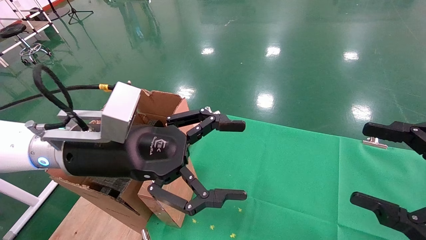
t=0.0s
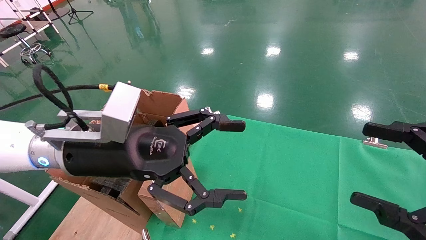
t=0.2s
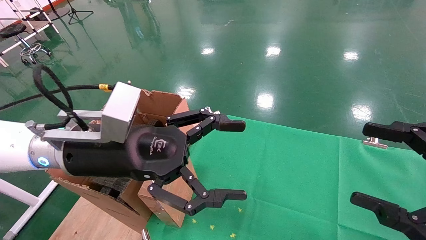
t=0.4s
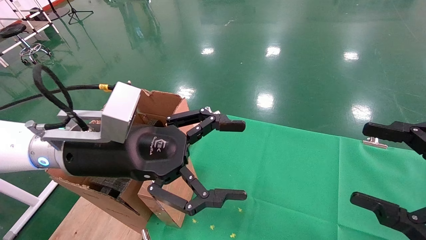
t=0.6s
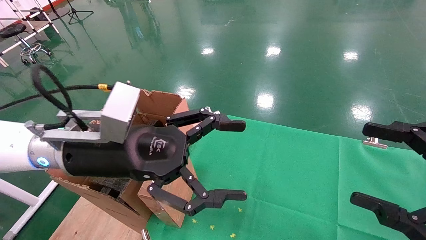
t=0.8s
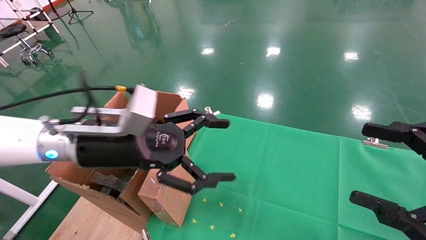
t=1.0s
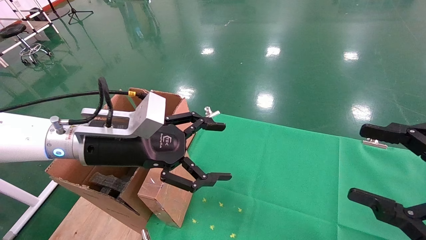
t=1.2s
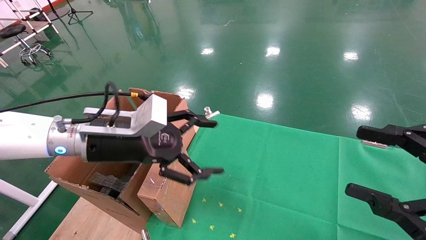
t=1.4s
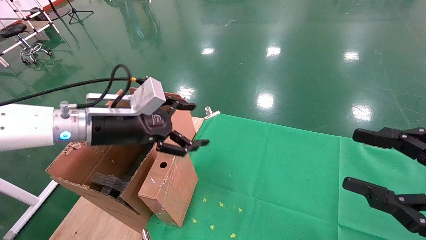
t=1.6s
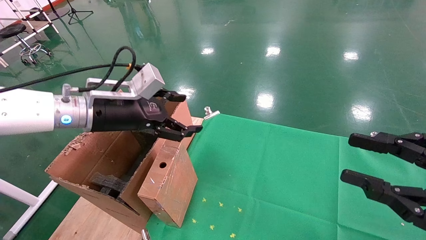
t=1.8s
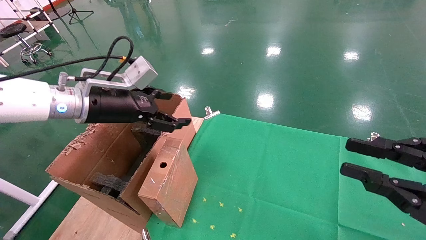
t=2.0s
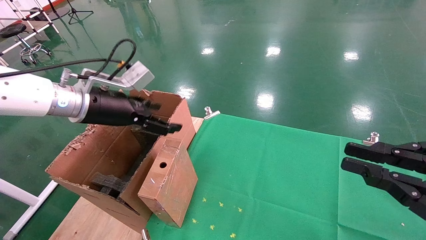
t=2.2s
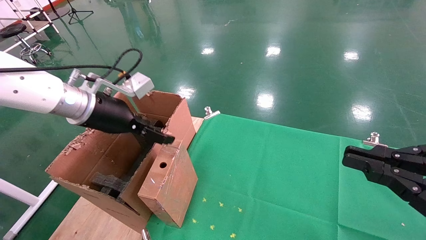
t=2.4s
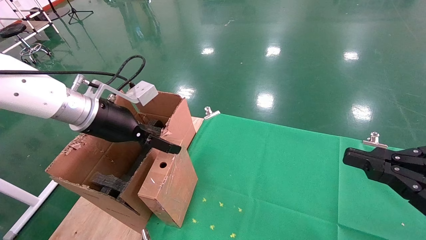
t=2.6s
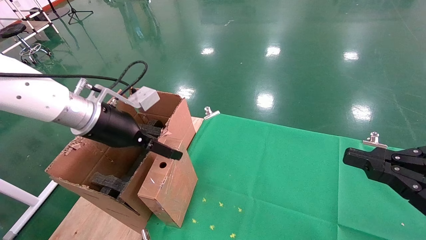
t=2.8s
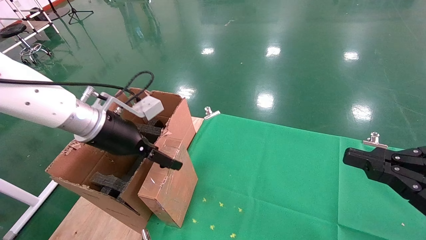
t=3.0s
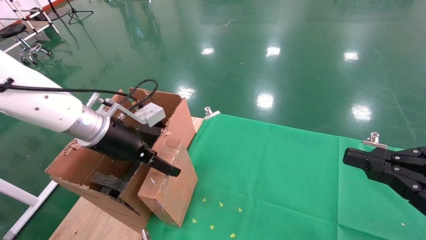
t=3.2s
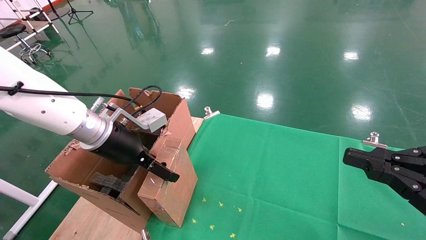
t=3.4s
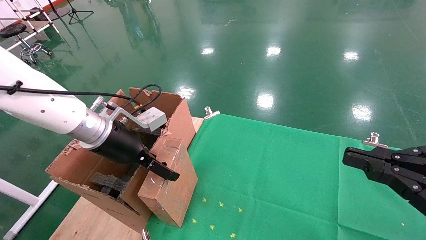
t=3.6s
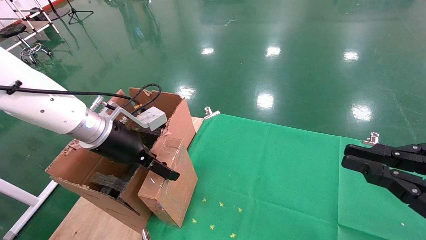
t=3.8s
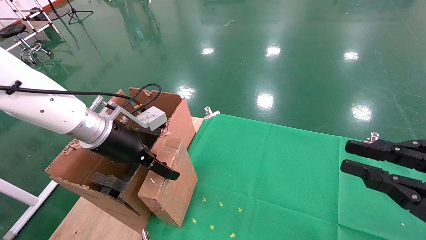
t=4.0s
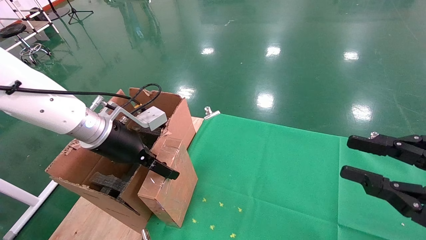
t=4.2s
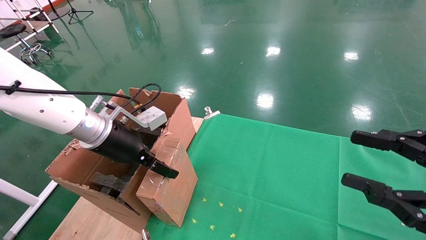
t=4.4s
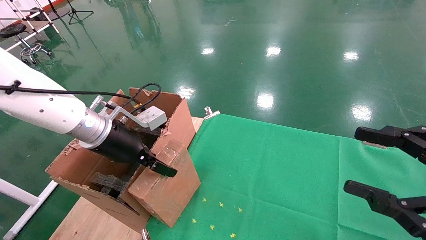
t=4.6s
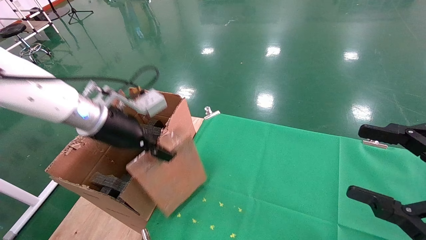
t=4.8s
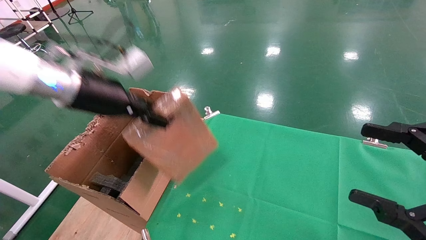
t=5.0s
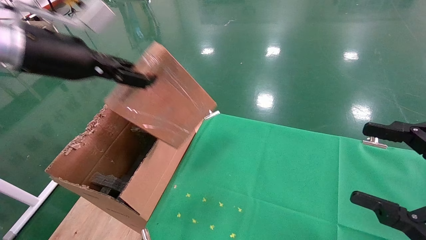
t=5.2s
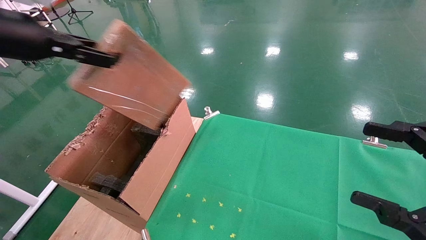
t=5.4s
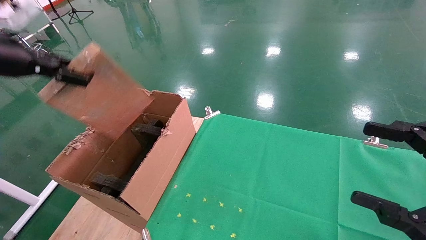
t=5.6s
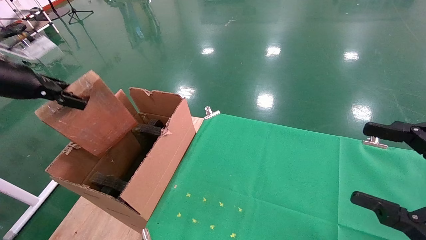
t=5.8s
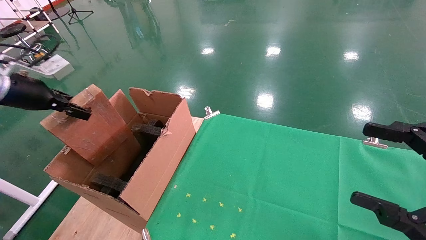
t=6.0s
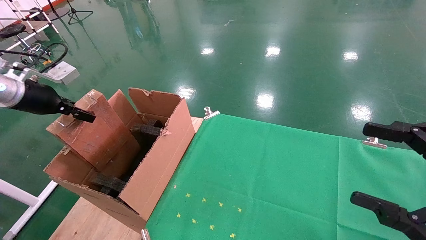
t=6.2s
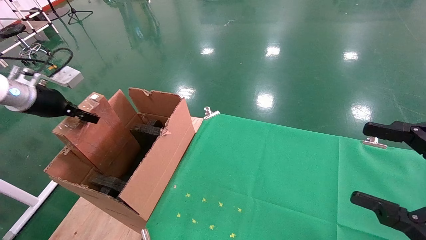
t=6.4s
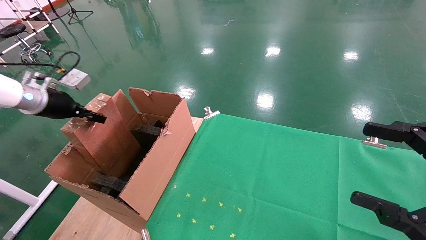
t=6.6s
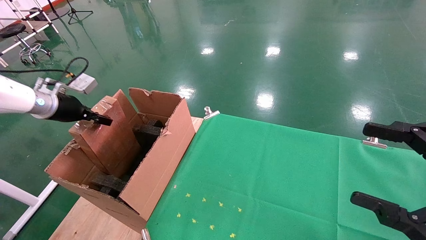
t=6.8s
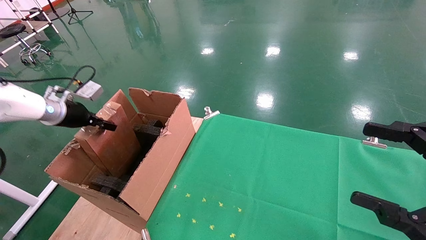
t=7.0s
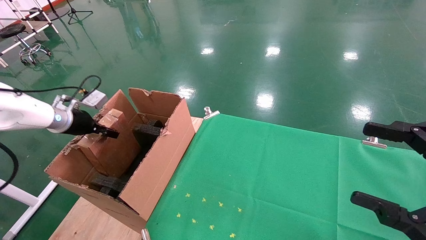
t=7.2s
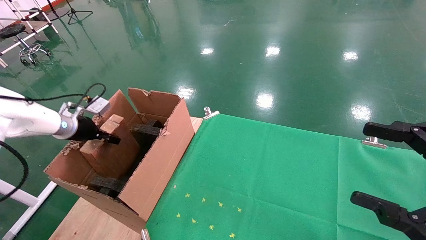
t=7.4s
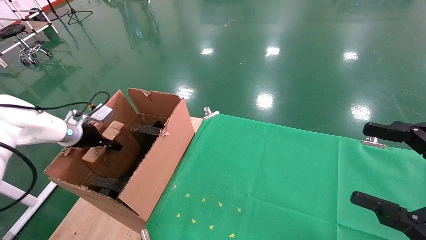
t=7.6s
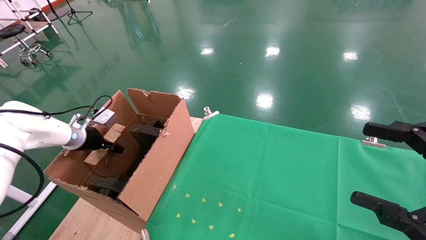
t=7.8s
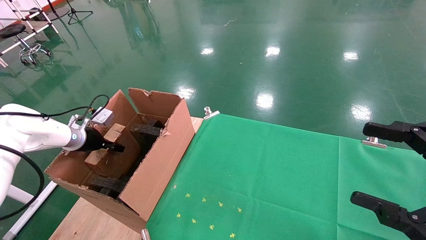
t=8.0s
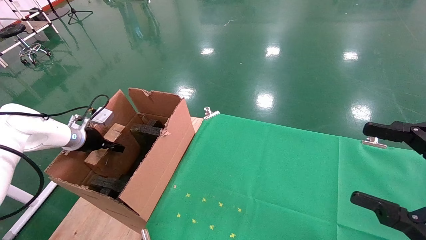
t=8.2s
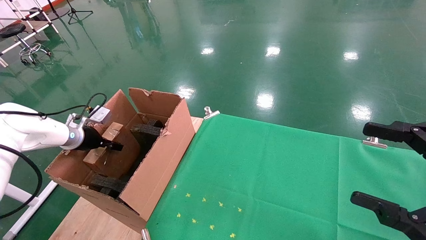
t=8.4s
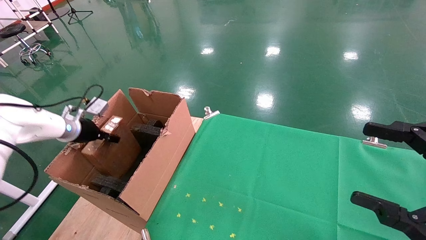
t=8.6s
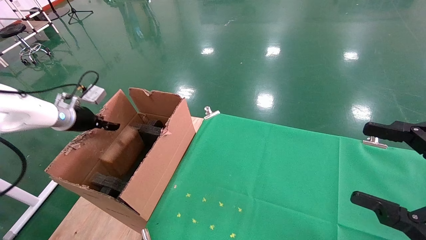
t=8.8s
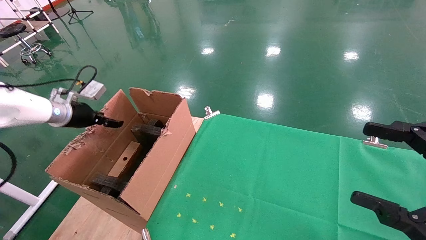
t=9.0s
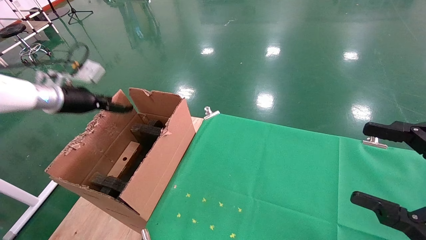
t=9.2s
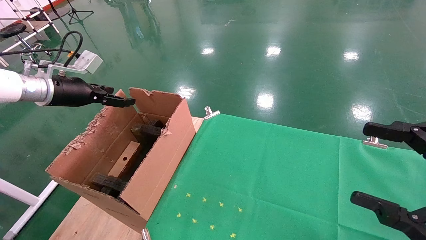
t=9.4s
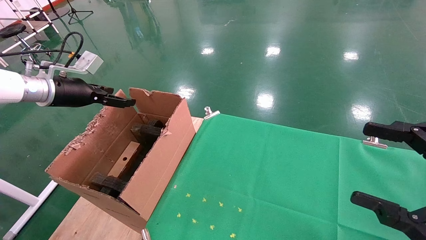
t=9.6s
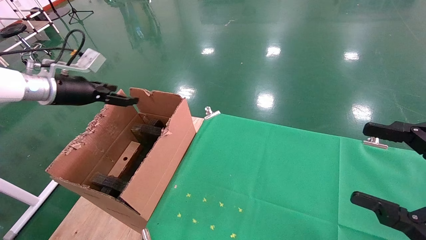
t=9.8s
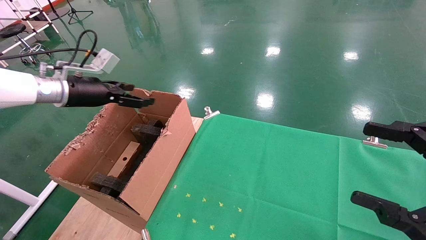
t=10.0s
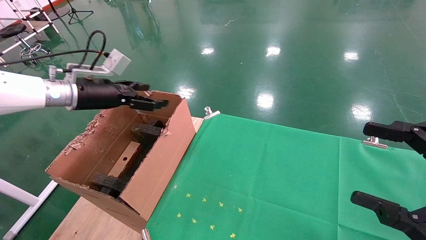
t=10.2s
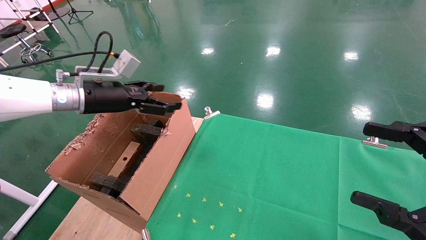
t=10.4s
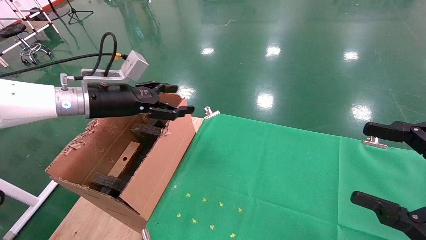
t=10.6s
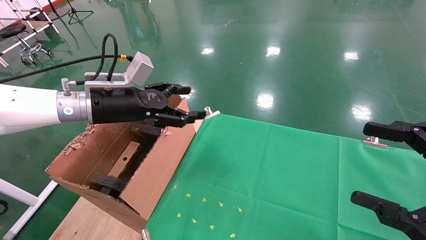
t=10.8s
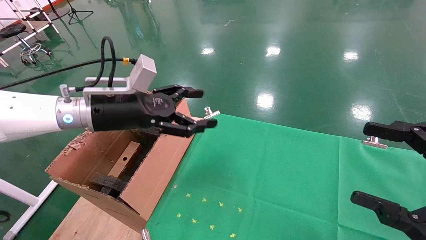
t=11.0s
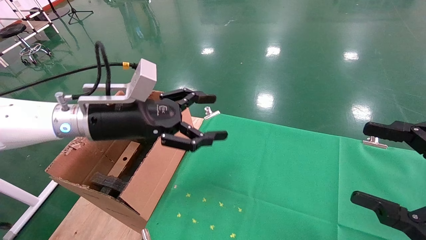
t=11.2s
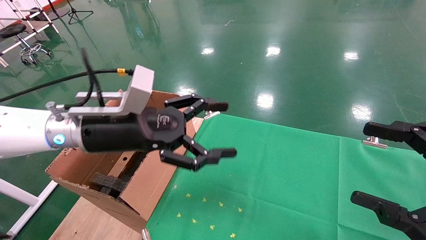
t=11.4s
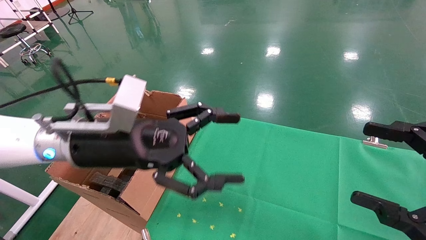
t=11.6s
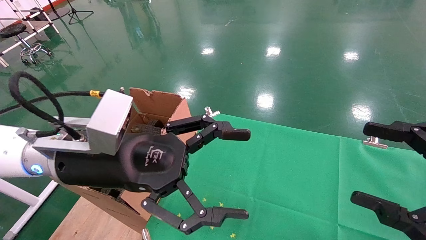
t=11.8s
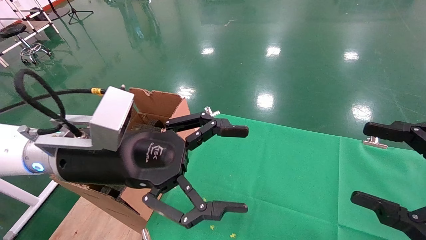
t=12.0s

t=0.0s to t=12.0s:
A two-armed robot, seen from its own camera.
Task of the whole recording: using a robotic arm to pick up a cardboard box and palace it the carton.
Step, t=1.2s to t=4.8s: Pick up the mouse and the power cord paper box.
Step, t=5.0s to t=9.4s: Place the mouse and the power cord paper box into the container.
t=0.0s to t=1.6s: The left gripper is displaced forward and to the left by about 10 cm.
t=1.6s to t=3.0s: The right gripper closes.
t=3.0s to t=4.4s: The right gripper opens.
t=4.4s to t=6.0s: The right gripper opens. Meanwhile the left gripper is displaced to the left by about 20 cm, and closes.
t=6.0s to t=7.6s: The left gripper is displaced downward and forward by roughly 20 cm.
t=7.6s to t=9.0s: The left gripper travels upward by roughly 10 cm, and opens up.
t=9.0s to t=10.4s: The left gripper moves to the right, about 15 cm, and opens its fingers.
t=10.4s to t=12.0s: The left gripper is displaced backward and to the right by roughly 20 cm.

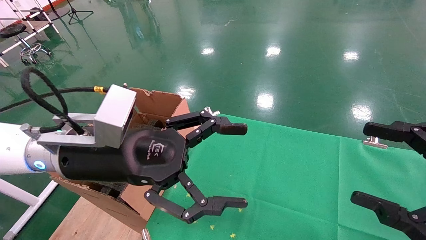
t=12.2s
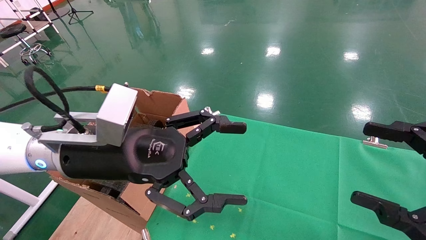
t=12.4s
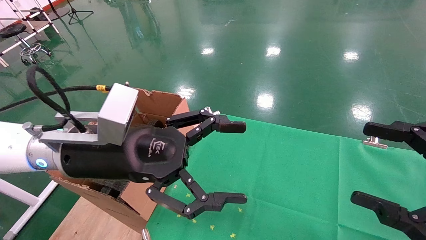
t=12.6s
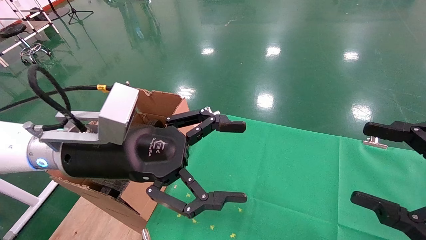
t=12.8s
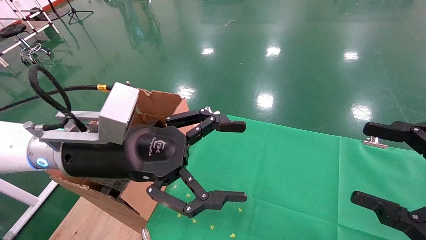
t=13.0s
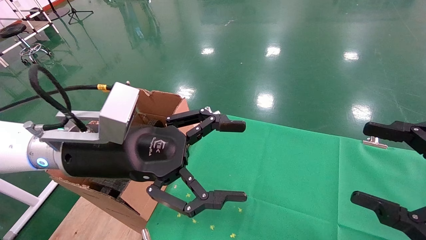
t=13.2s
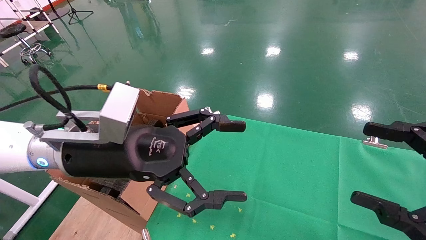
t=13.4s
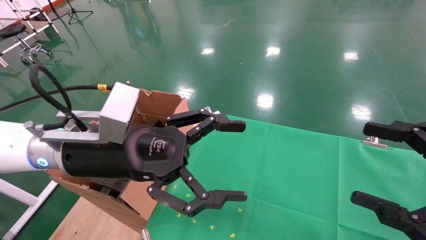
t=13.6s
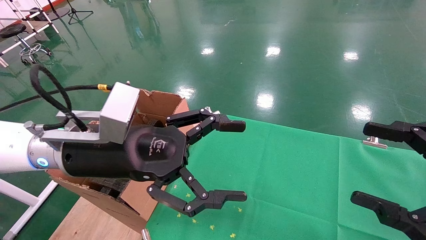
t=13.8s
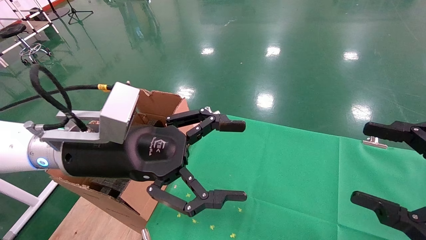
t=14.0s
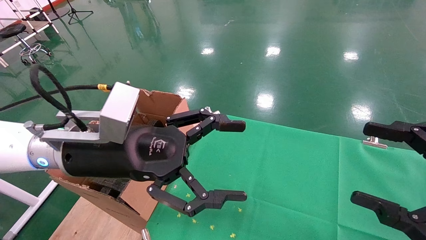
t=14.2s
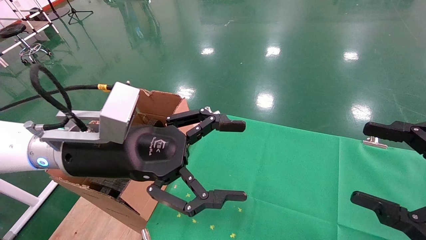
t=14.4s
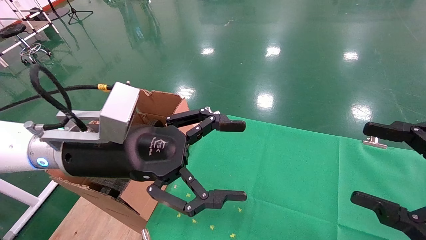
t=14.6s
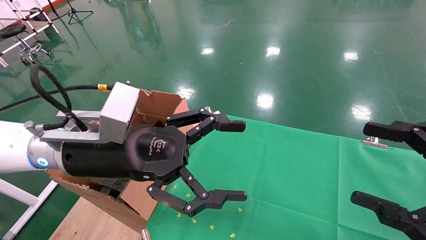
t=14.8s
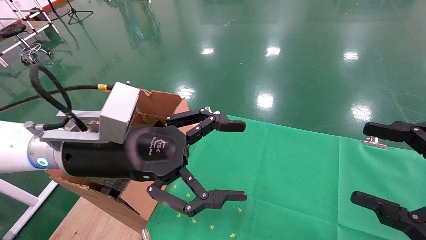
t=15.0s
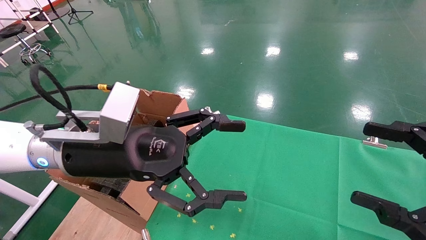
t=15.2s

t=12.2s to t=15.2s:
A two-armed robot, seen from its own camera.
Task of the whole recording: using a robotic arm to pick up a cardboard box and palace it the carton.
t=12.2s to t=15.2s: The two grippers keep their place.
